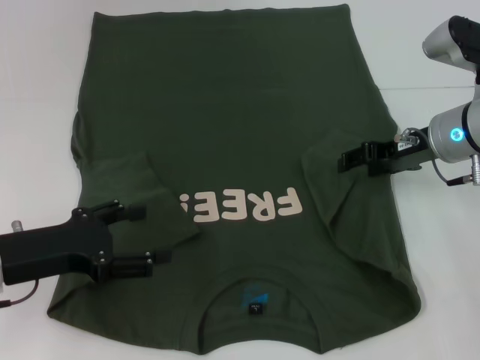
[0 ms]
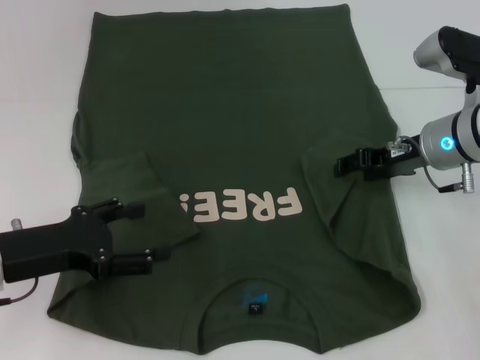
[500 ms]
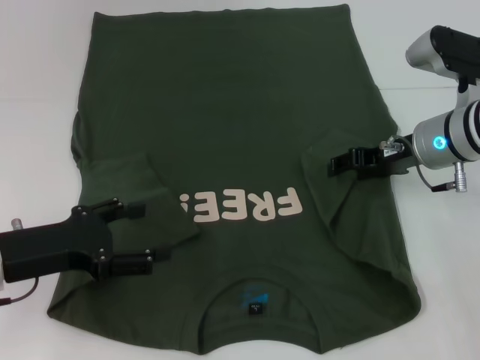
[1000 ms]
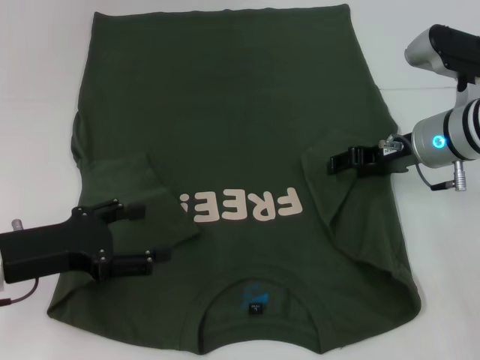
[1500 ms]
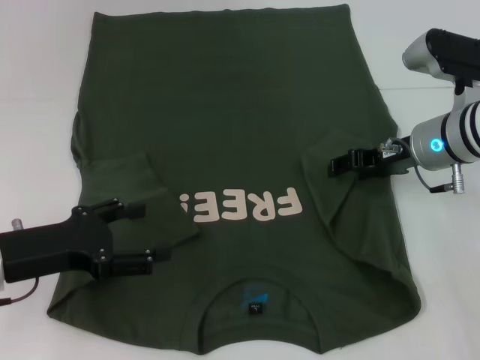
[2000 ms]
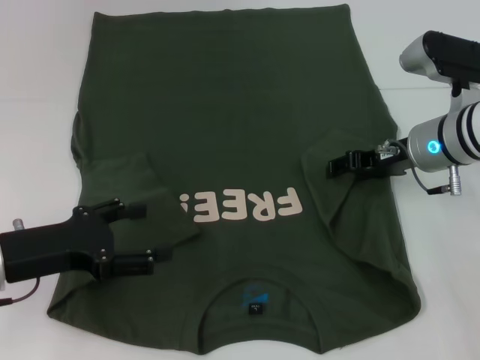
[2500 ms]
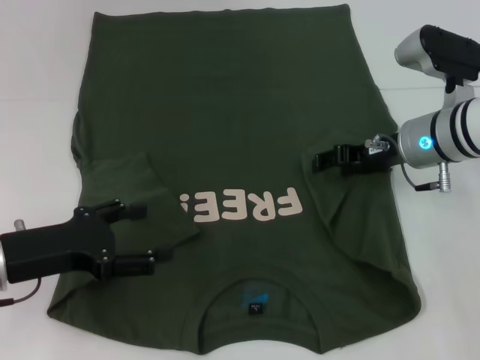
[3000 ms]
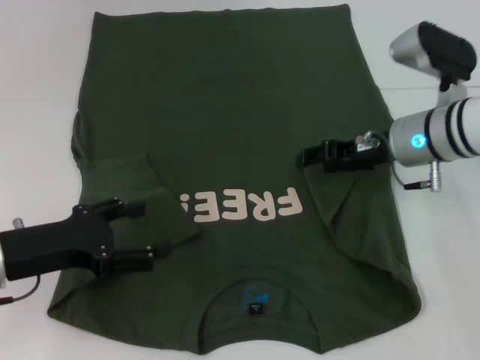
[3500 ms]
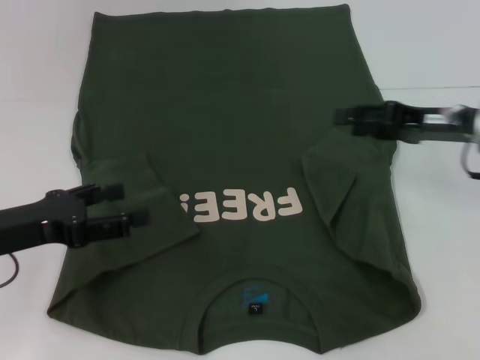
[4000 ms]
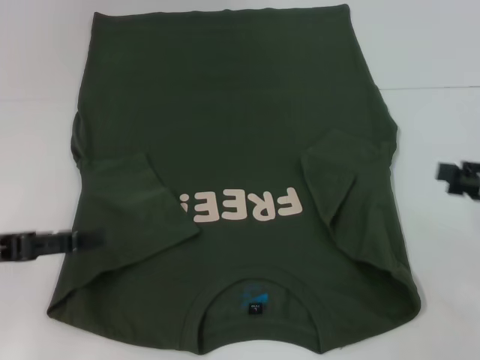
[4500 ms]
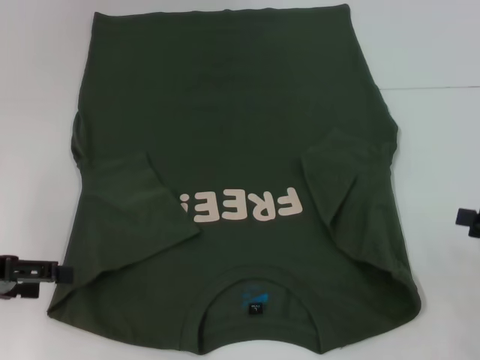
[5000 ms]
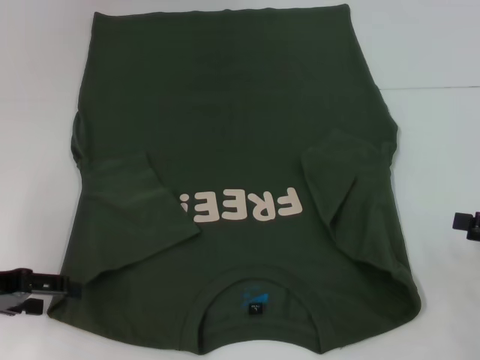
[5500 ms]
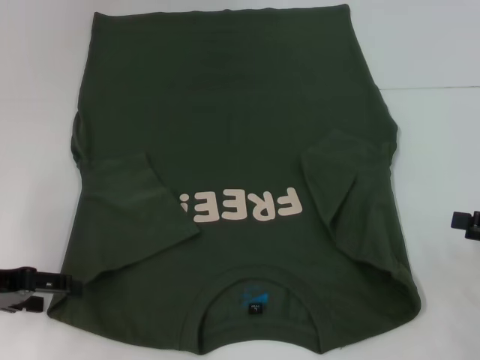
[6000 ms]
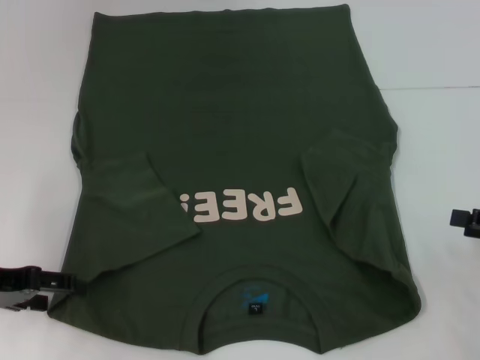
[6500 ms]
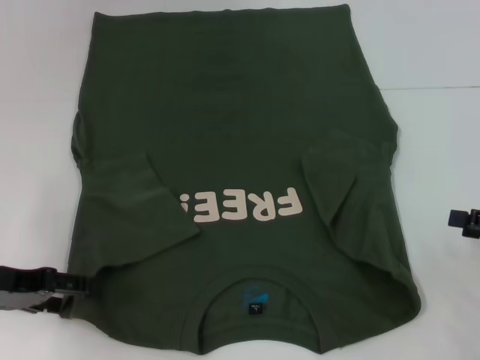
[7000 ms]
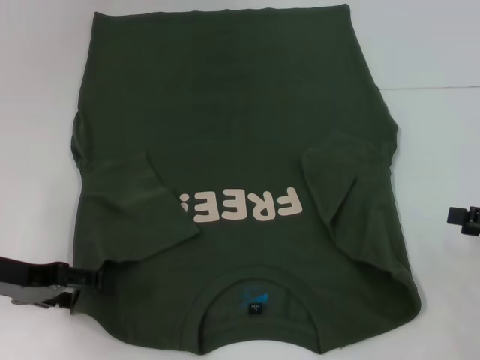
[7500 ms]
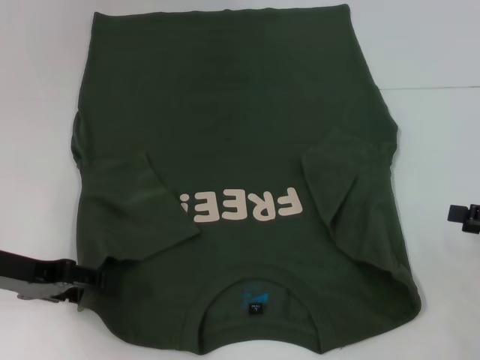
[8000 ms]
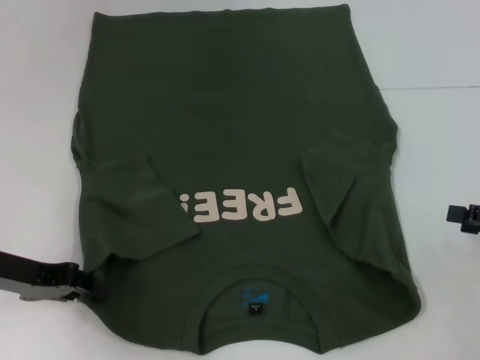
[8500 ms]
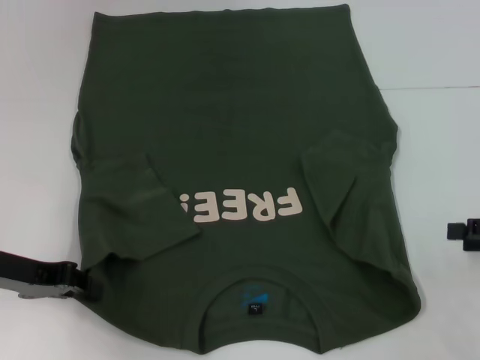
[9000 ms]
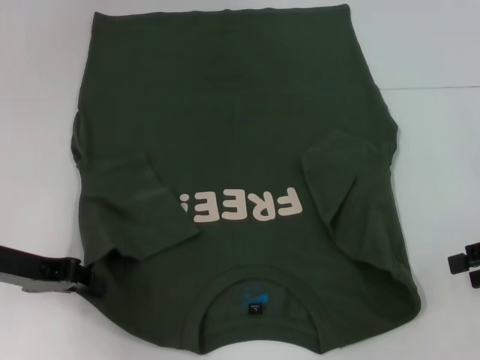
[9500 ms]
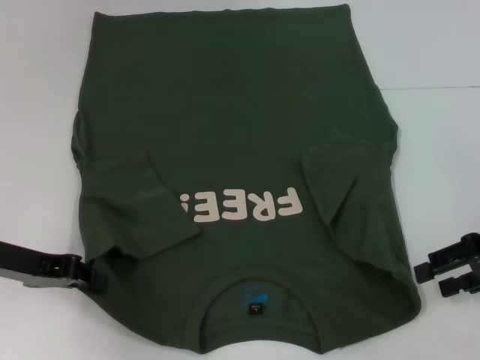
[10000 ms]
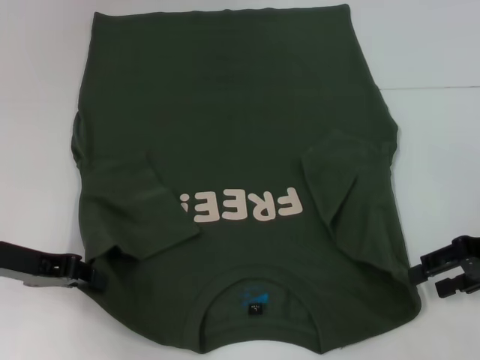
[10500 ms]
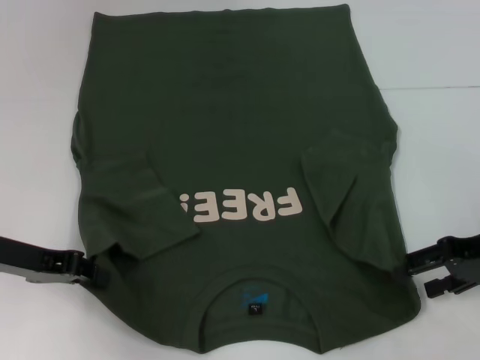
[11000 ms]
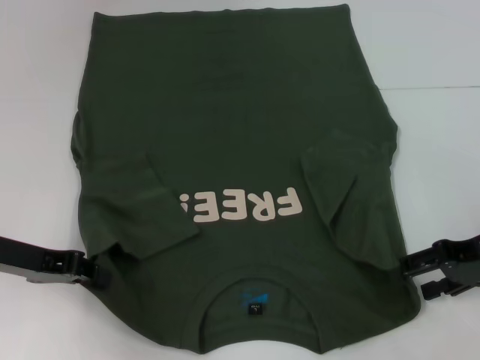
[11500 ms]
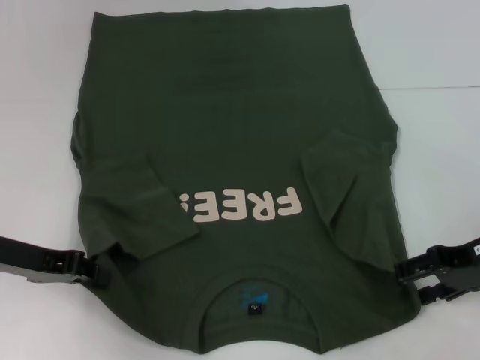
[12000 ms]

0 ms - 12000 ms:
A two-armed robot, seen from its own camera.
Step, 0 ms - 8500 ms: Grab the bottom left corner with your left hand.
0 ms - 2000 ms: The grippers make only small movements.
2000 ms - 4000 ms: The right gripper shifts roughly 5 cm to the right.
4000 ms - 6000 ms: The right gripper heads to the right and backward, covering some 15 cm.
6000 ms - 8000 ms: The grippers move only a little.
8000 ms - 10000 ms: The right gripper heads to the left, covering approximately 5 cm. Meanwhile the left gripper closes up.
10000 ms - 12000 ms: The grippers make only small movements.

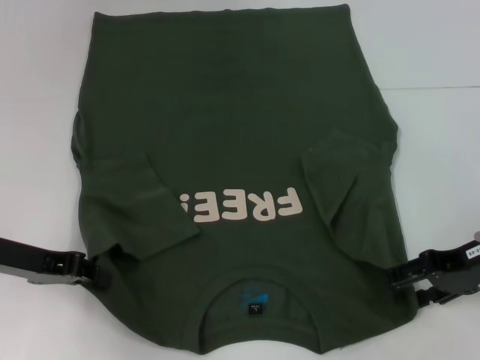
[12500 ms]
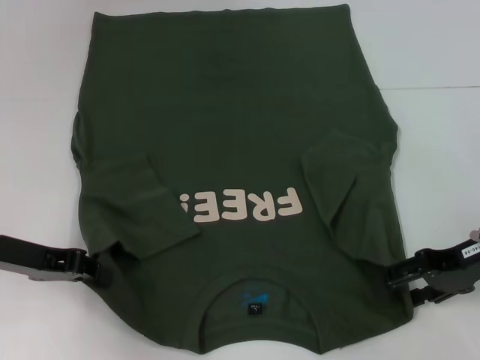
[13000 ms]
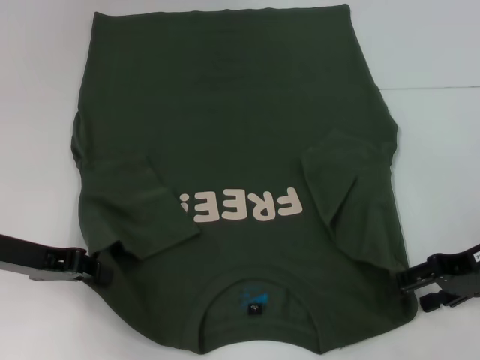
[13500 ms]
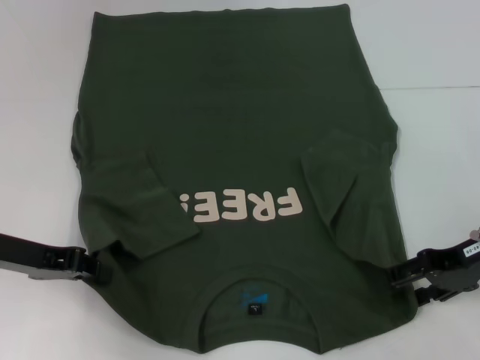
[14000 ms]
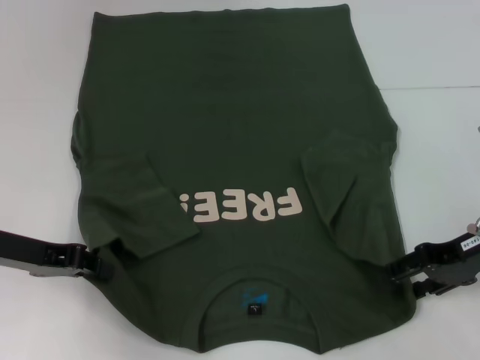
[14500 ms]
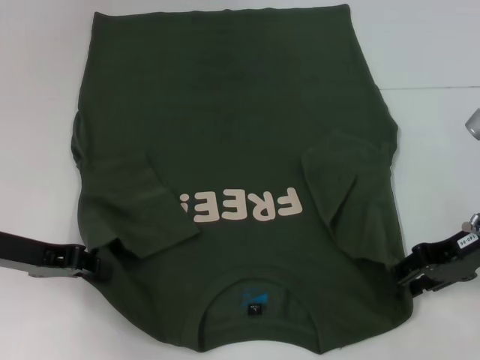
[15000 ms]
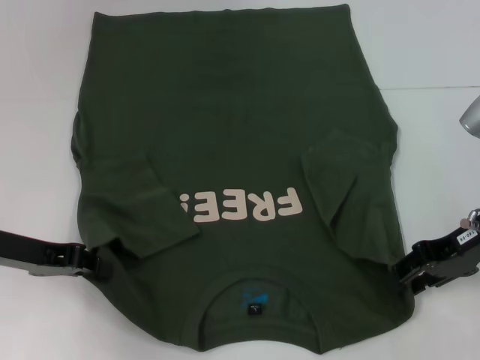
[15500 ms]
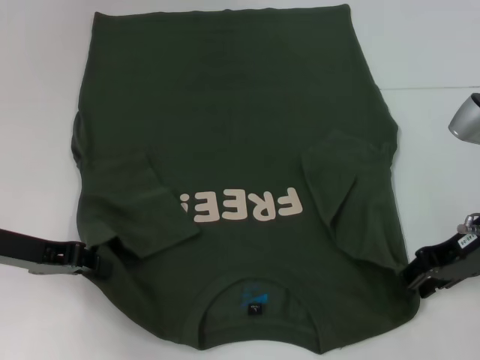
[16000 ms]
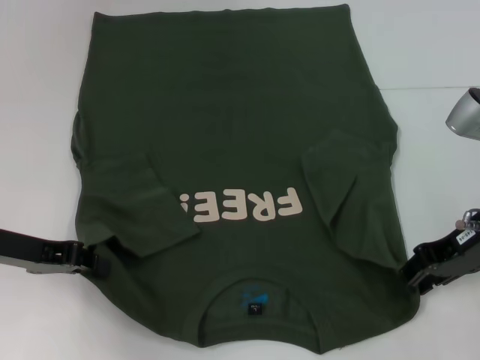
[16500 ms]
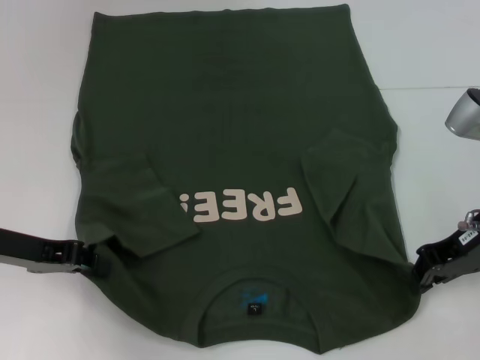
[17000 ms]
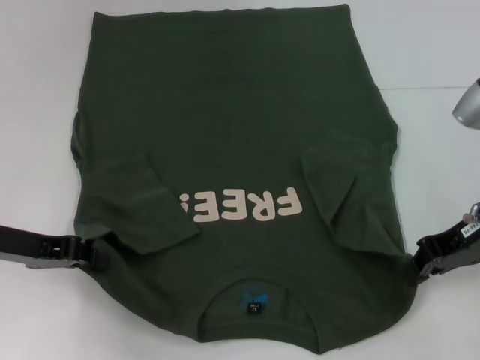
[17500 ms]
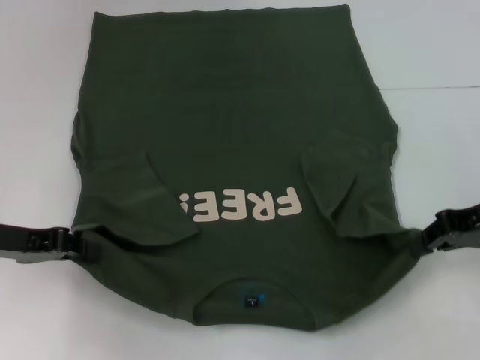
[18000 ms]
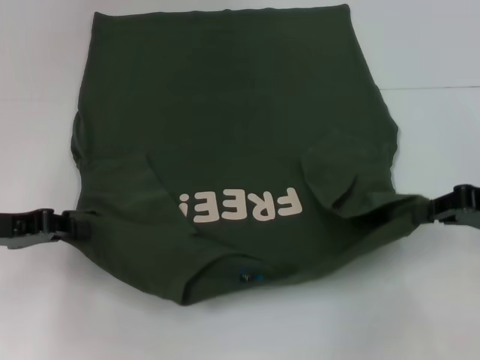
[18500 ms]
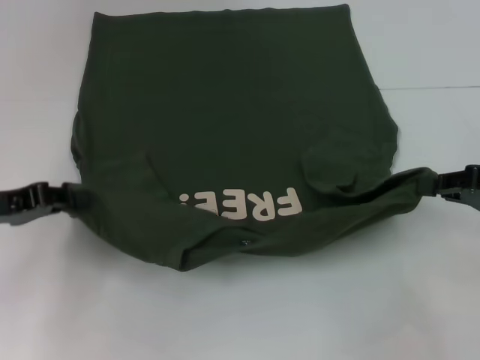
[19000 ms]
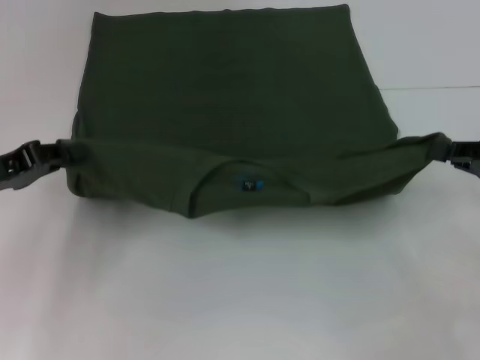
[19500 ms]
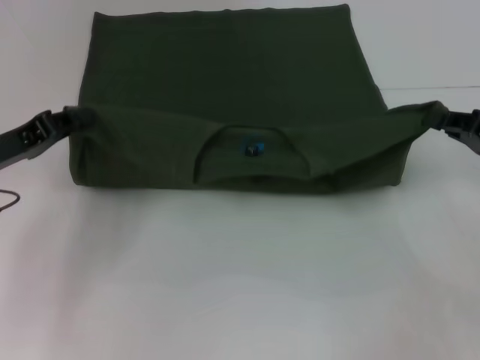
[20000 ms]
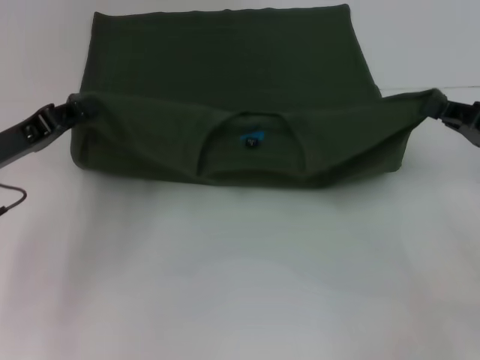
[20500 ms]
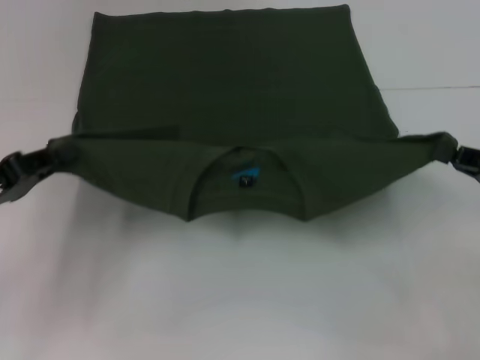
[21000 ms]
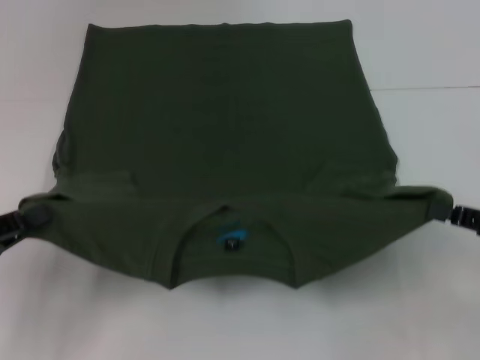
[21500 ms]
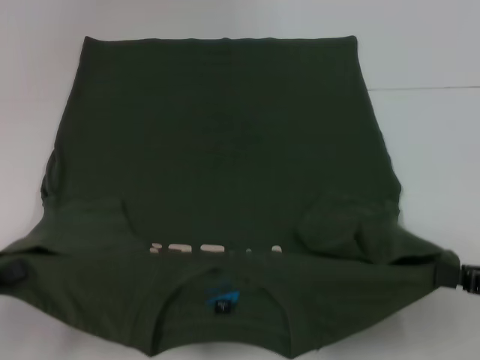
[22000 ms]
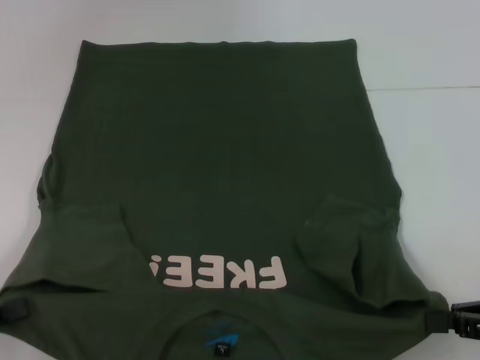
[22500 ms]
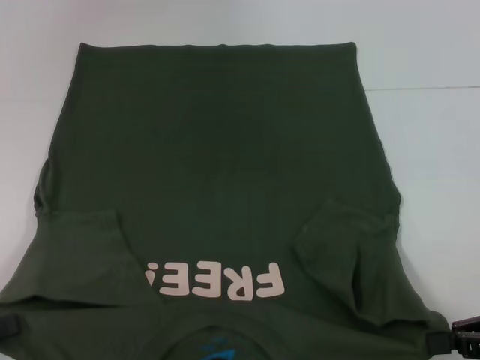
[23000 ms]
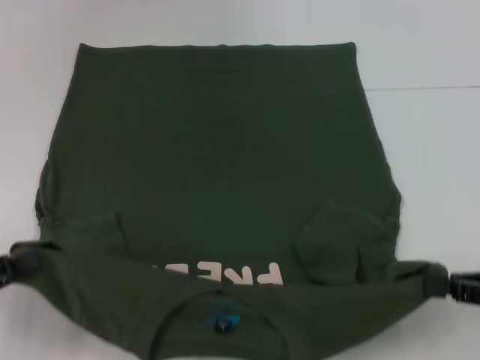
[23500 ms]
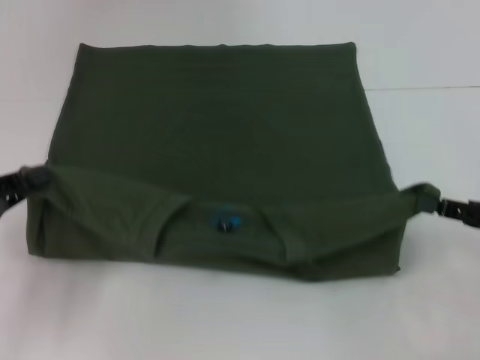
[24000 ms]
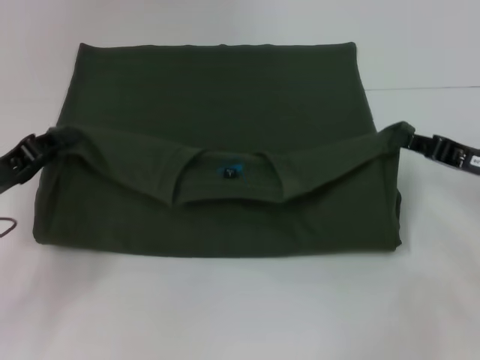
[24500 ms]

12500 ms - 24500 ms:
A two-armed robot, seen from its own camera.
Step, 12500 ms - 17000 ms: Grab the bottom right corner with your right hand.
12500 ms - 14500 ms: Neither gripper changes place.
14500 ms - 16500 ms: The right gripper closes its fingers.
16500 ms - 18500 ms: The right gripper is displaced to the right by approximately 5 cm, and closes its fingers.
20500 ms - 22500 ms: The right gripper is displaced backward by approximately 10 cm. Meanwhile the left gripper is displaced backward and to the left by about 20 cm.
22500 ms - 24500 ms: The right gripper shifts roughly 10 cm forward. The left gripper is displaced forward and to the right by about 15 cm.

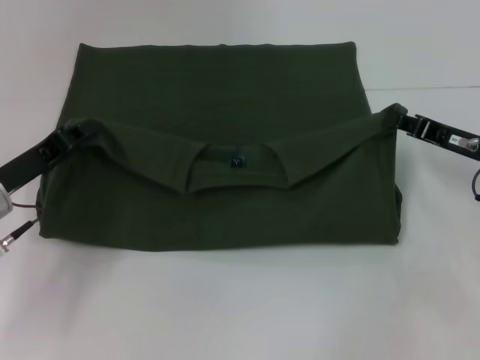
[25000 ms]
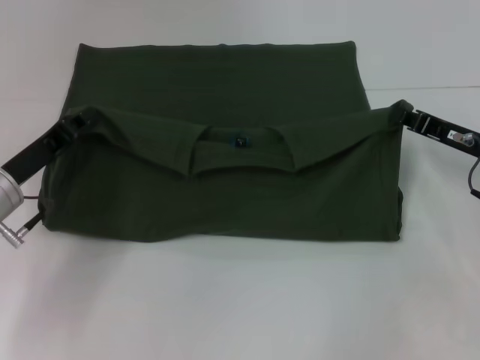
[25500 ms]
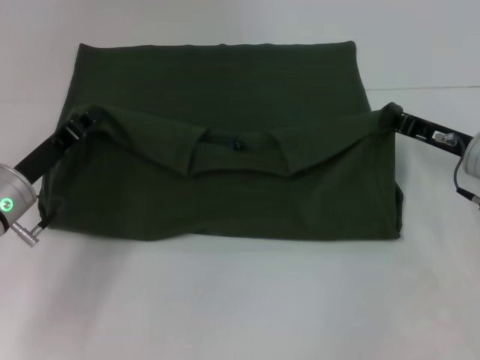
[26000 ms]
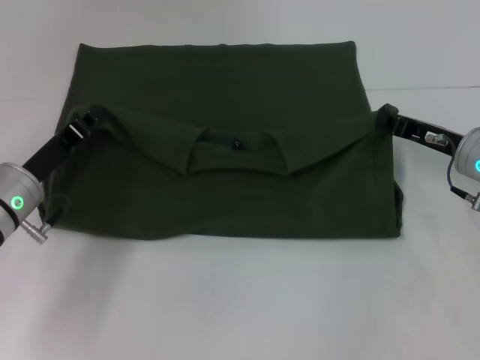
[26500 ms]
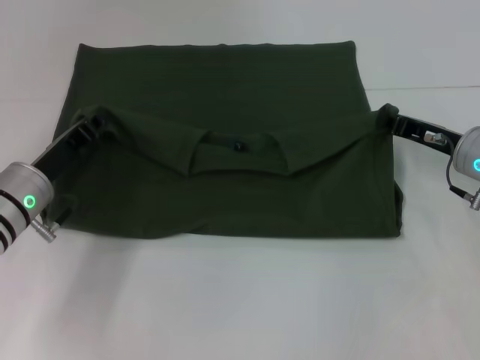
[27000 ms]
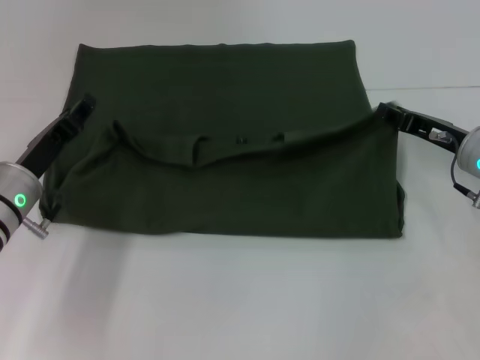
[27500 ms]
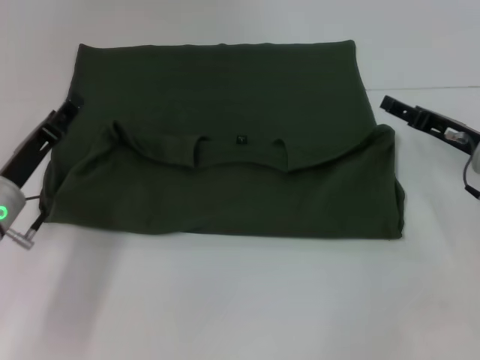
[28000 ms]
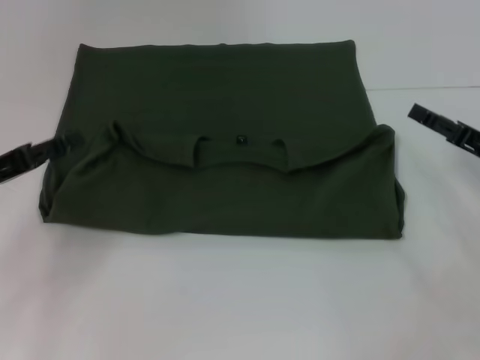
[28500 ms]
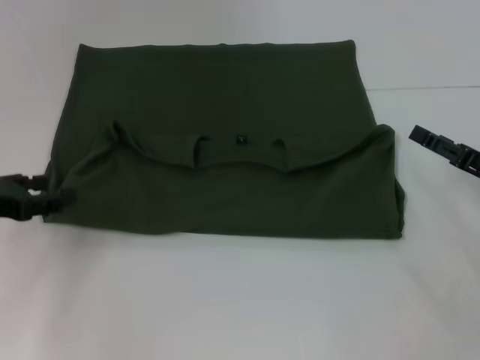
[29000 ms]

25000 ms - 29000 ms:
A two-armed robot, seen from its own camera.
Step, 25000 ms - 27000 ms: Fold the clothes with your left hand.
25000 ms - 27000 ms: There are only small adjustments of the grippers.
27000 ms - 29000 ms: The left gripper goes some 10 cm to the left and upward, and opens up; the right gripper is displaced backward and to the right by approximately 10 cm, and opens its fingers.
